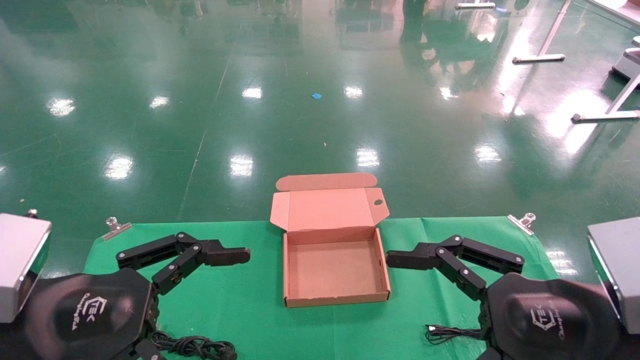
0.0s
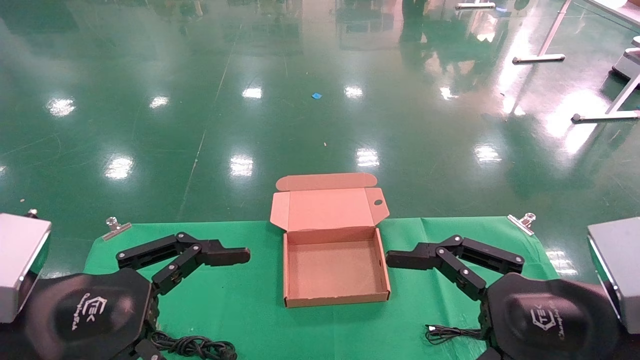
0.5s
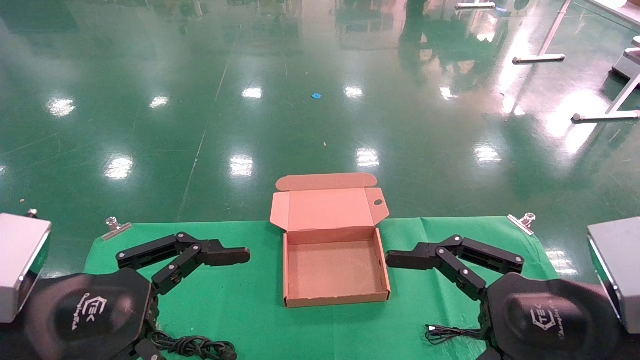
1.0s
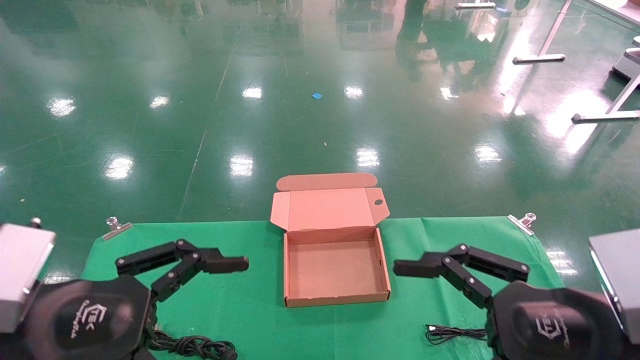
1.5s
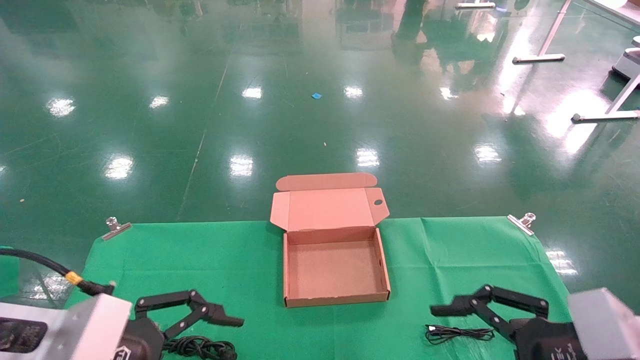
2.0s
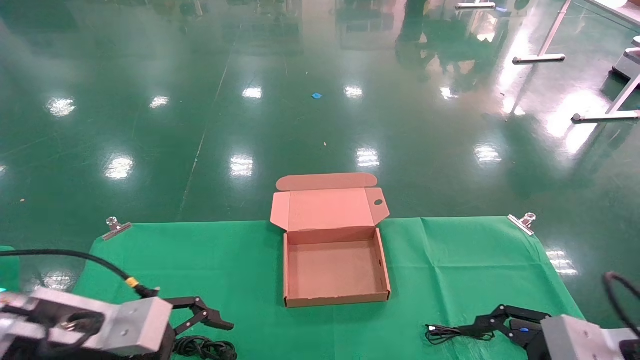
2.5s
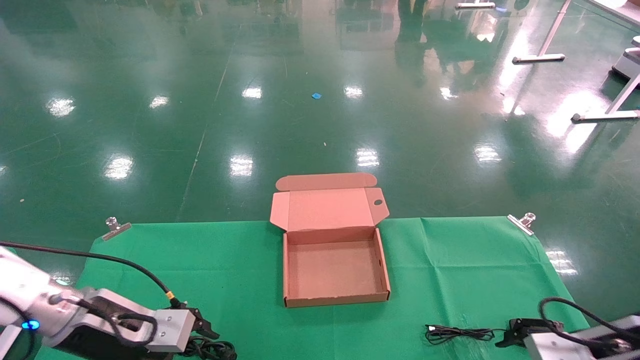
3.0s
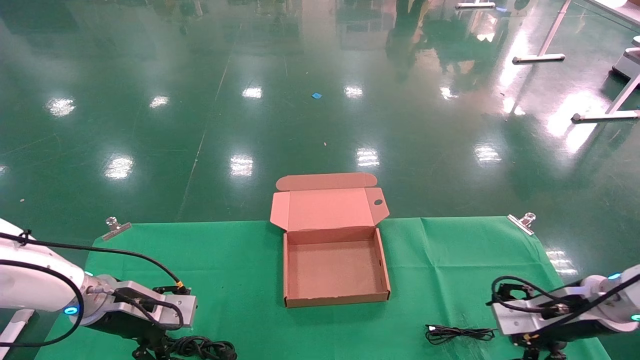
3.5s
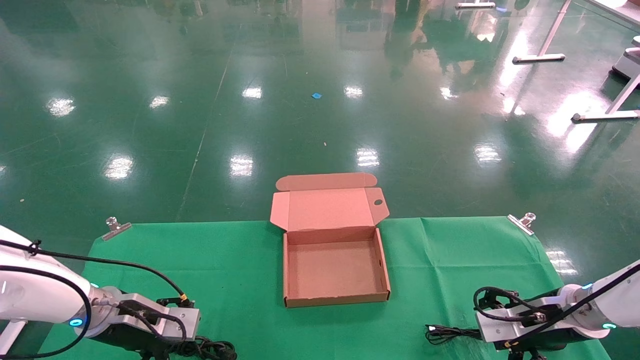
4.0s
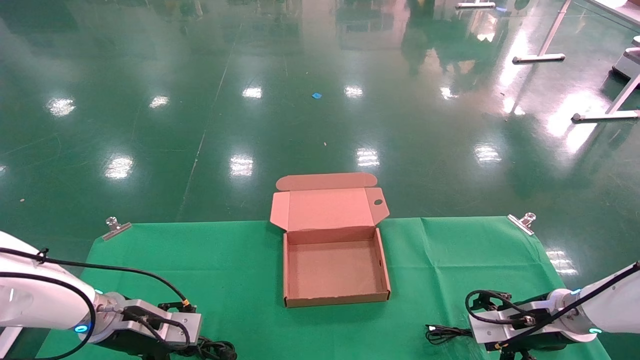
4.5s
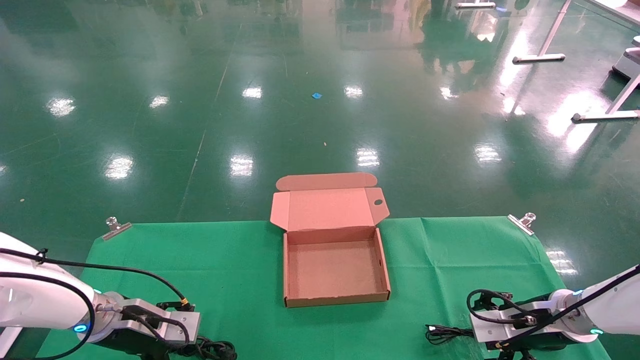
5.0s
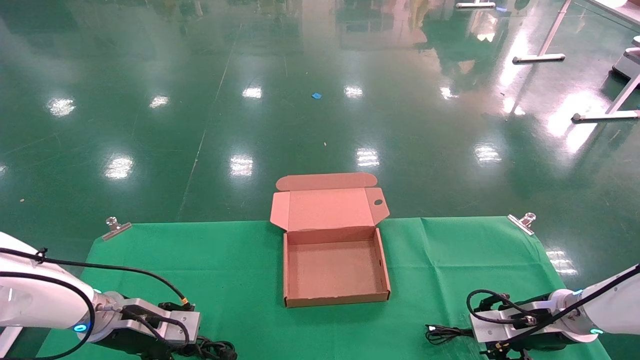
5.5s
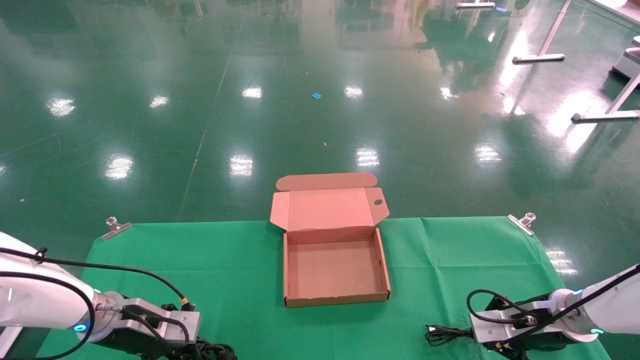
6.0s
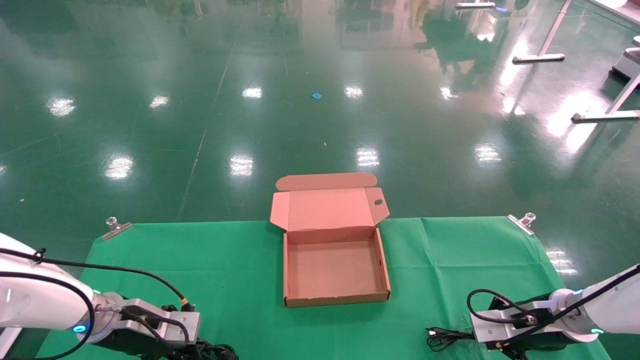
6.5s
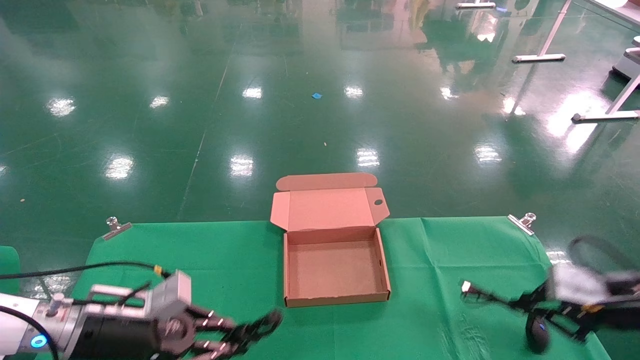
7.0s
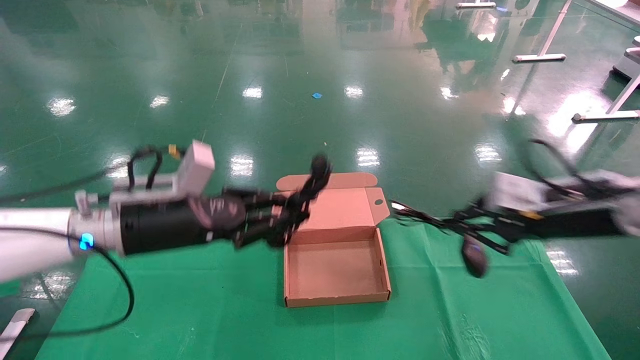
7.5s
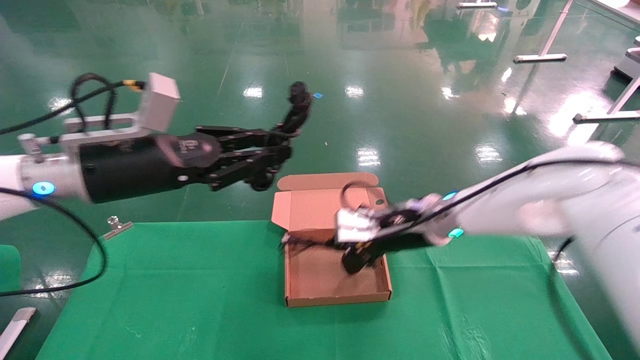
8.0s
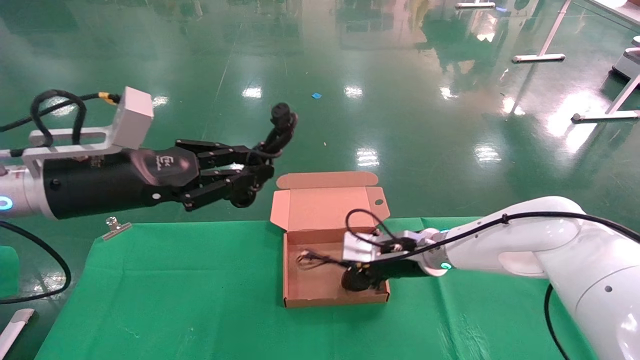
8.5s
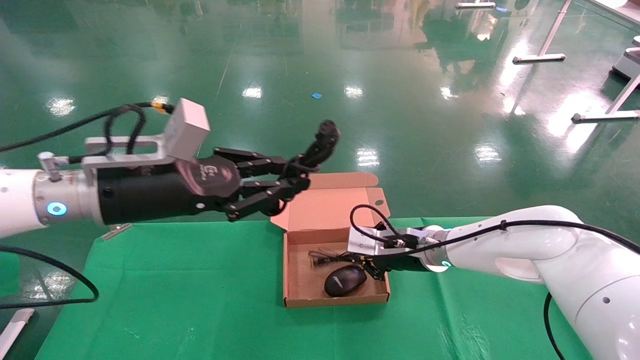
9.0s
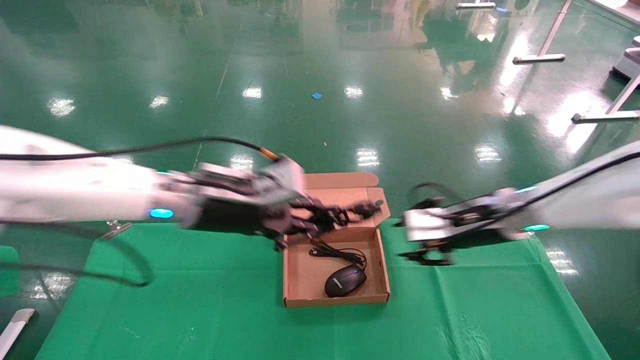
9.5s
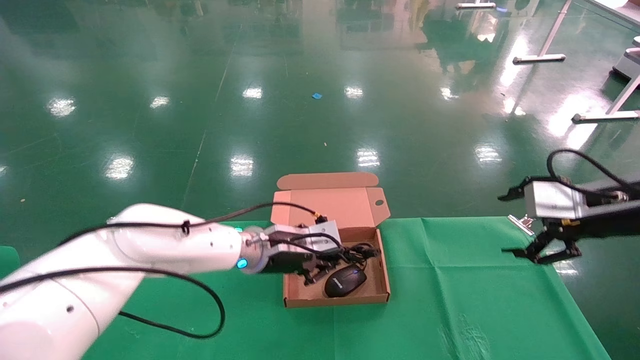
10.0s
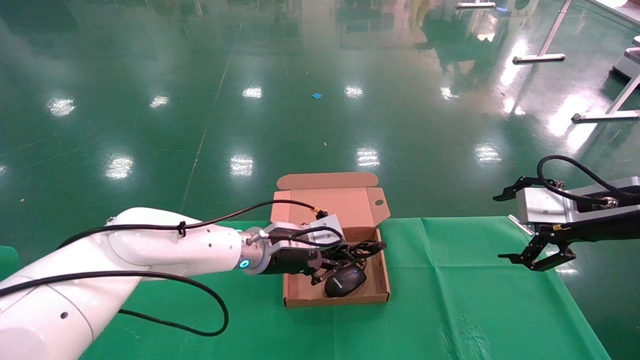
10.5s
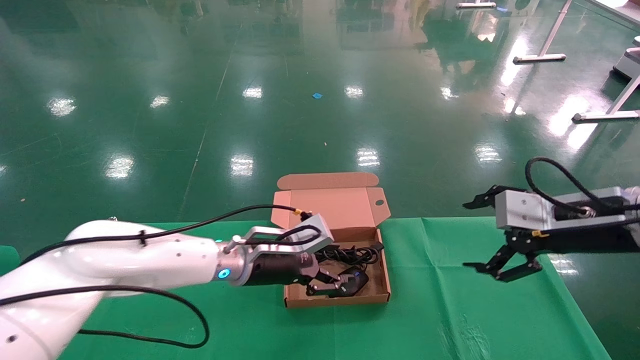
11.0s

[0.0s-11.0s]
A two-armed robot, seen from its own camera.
Step, 1.5s to 6.0s: Grab and lift both the mouse and power cord from the accessory packaging area at the same time.
Step, 6.5s to 10.0s: Place the mouse and power cord into the box.
0.0s to 2.0s: The right gripper changes place by some 5 cm.
2.0s to 3.5s: The two grippers go some 20 cm forward and downward.
3.5s to 5.5s: The right gripper ends up approximately 5 cm from where it was.
5.5s to 7.5s: The left gripper heads upward and to the right, covering some 20 cm, and closes, while the right gripper is displaced upward by about 20 cm, and closes.
7.5s to 9.0s: The left gripper shifts approximately 5 cm upward. The right gripper shifts some 20 cm to the left, forward and downward.
9.0s to 11.0s: The left gripper travels downward, to the right and forward by approximately 20 cm; the right gripper travels to the right, backward and upward by about 25 cm, and opens.

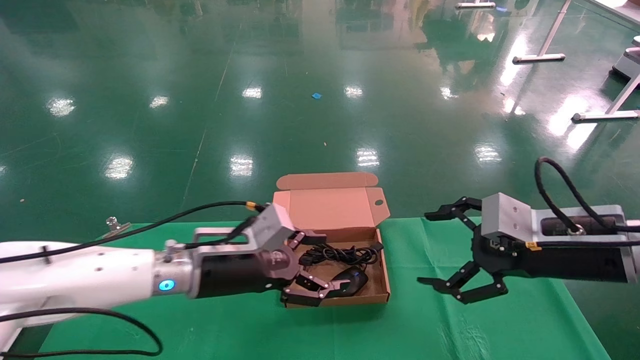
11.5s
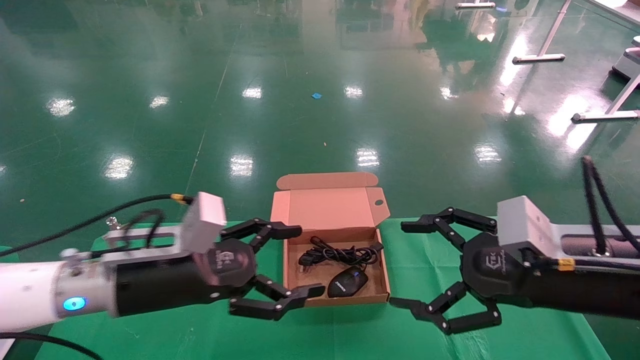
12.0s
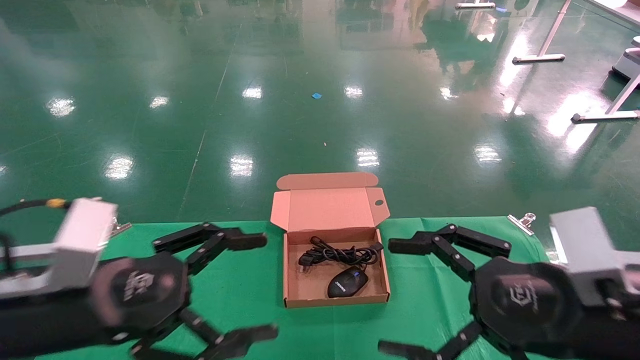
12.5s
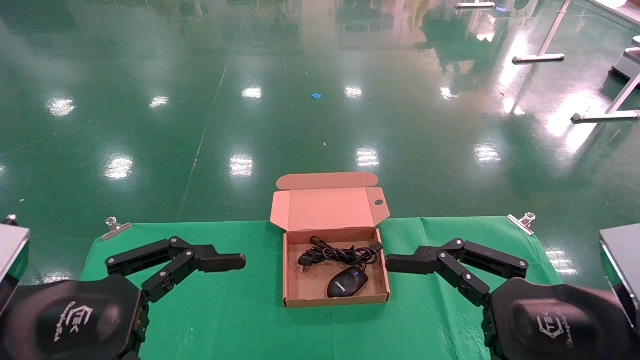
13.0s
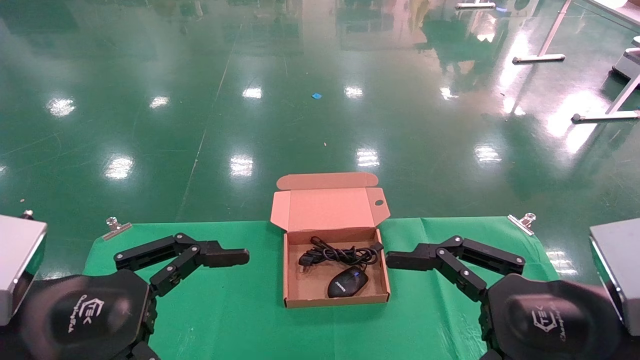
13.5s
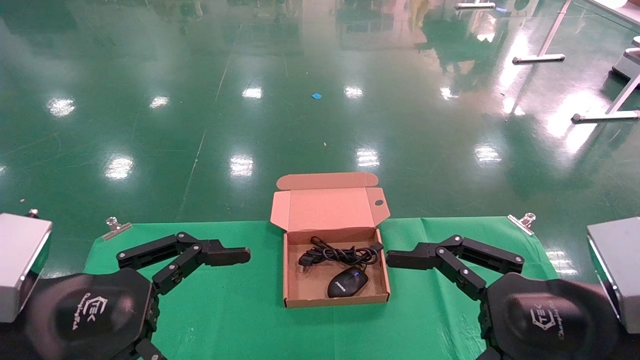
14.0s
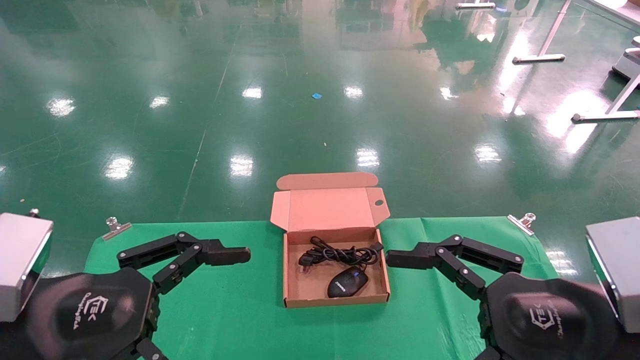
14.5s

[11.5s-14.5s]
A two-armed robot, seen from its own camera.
11.5s to 13.0s: The left gripper goes some 25 cm backward and to the left; the right gripper heads backward, covering roughly 15 cm.
13.0s to 14.5s: Neither gripper changes place.
